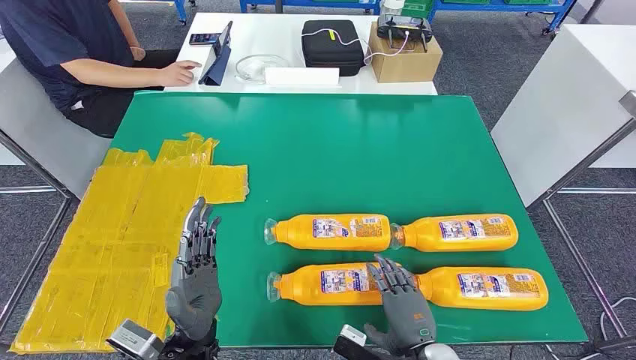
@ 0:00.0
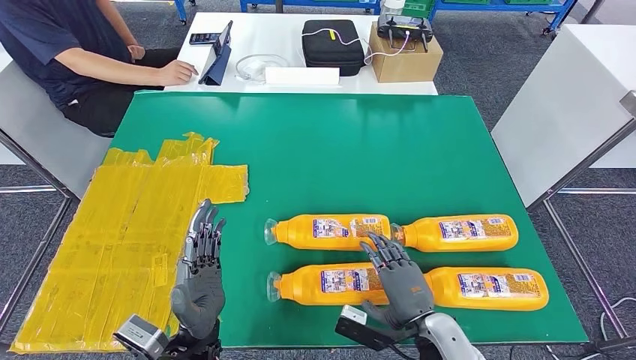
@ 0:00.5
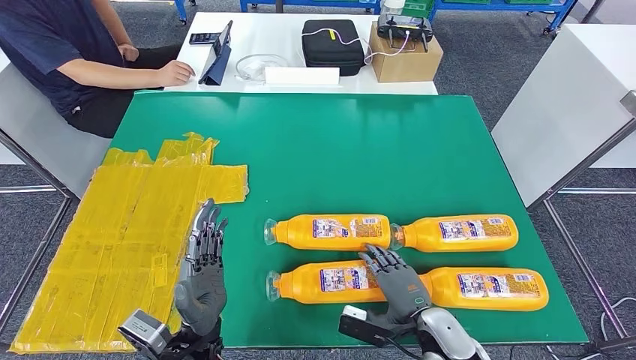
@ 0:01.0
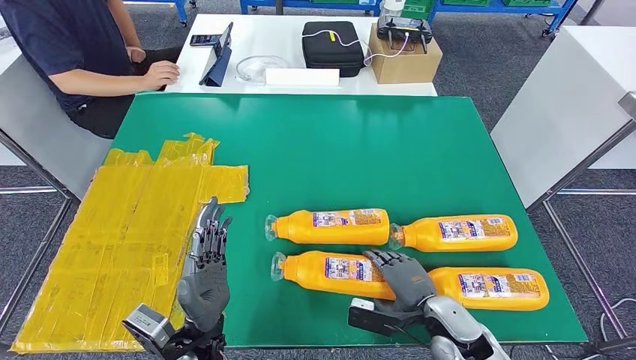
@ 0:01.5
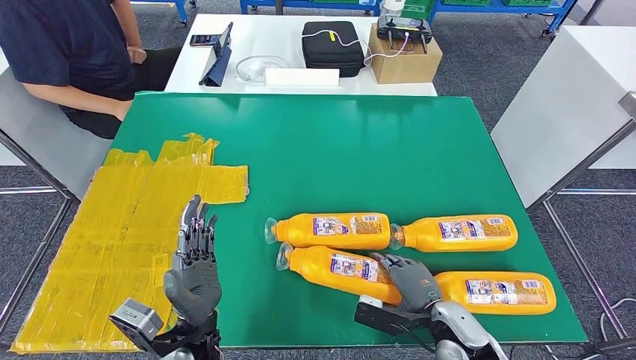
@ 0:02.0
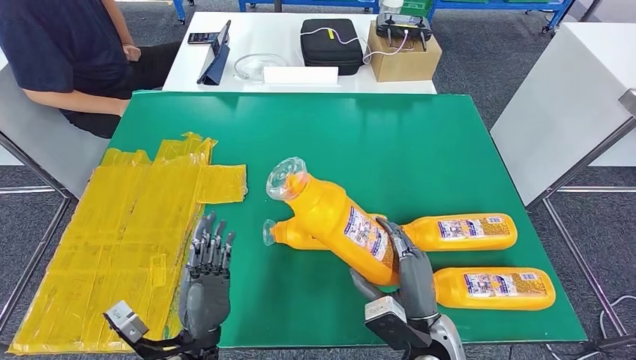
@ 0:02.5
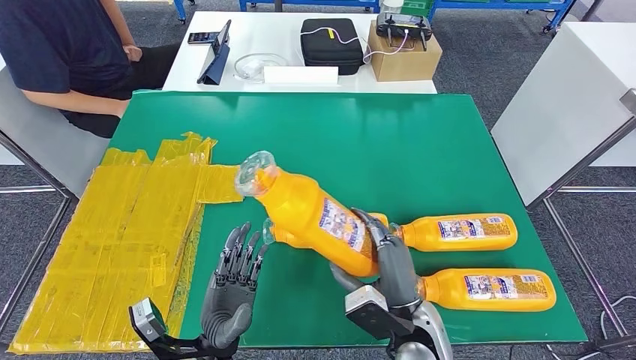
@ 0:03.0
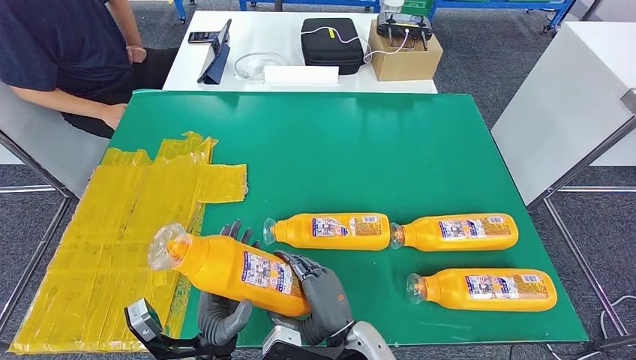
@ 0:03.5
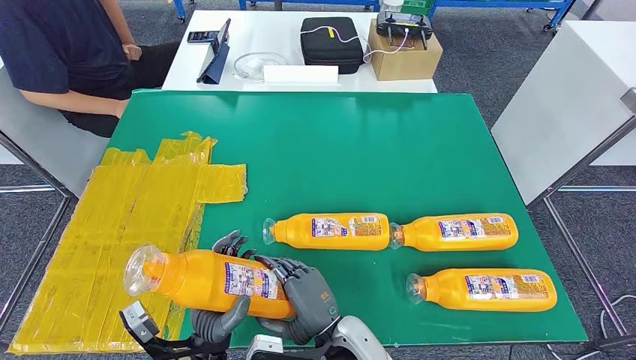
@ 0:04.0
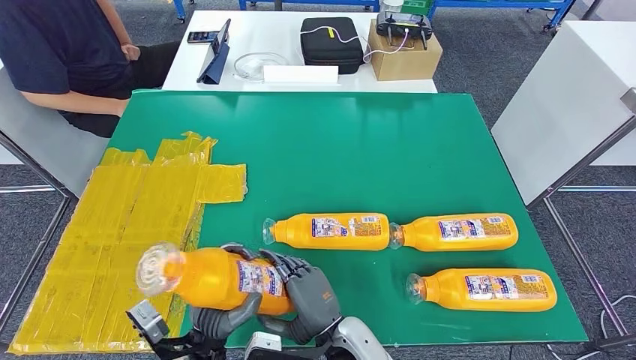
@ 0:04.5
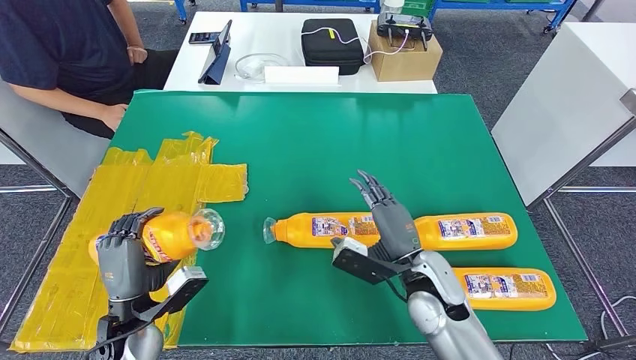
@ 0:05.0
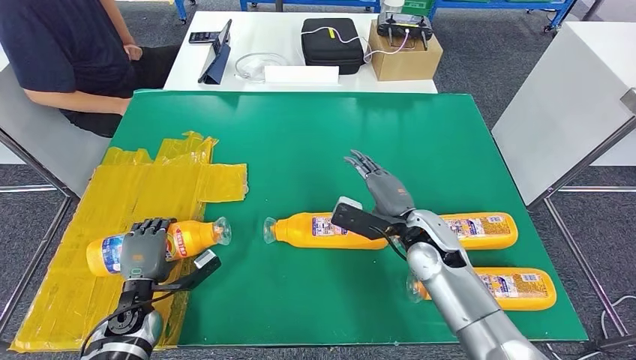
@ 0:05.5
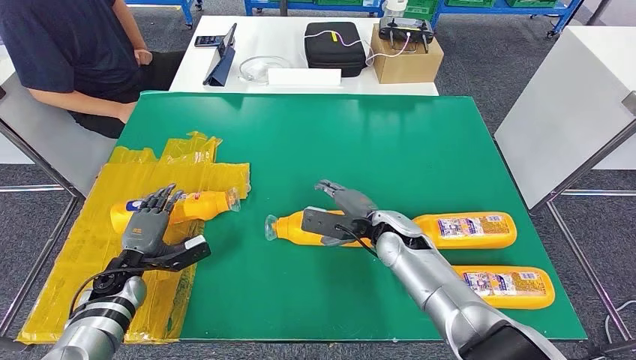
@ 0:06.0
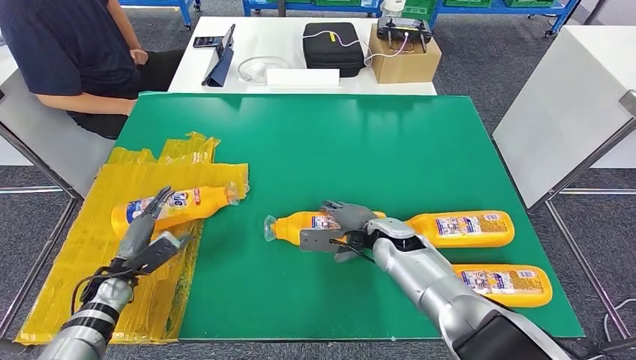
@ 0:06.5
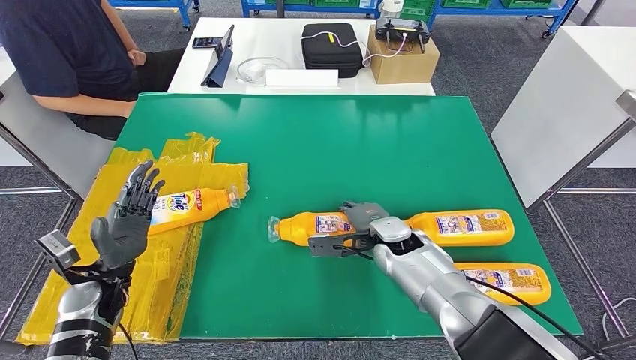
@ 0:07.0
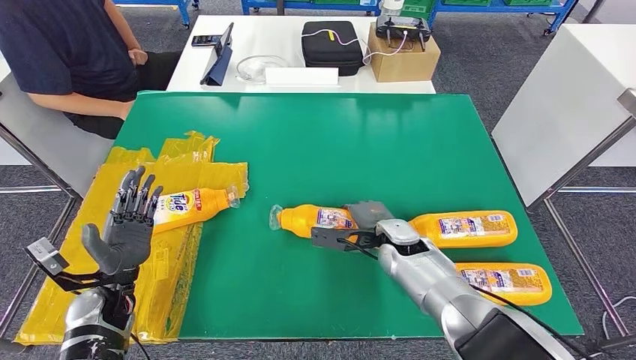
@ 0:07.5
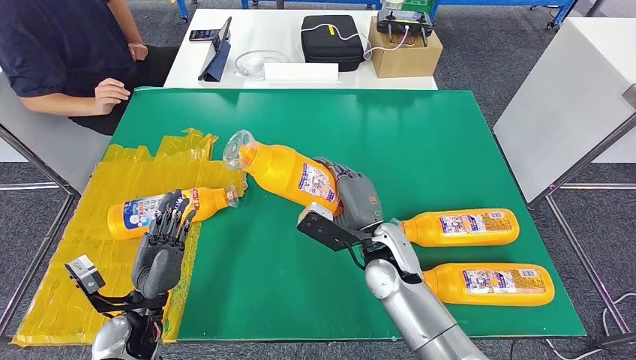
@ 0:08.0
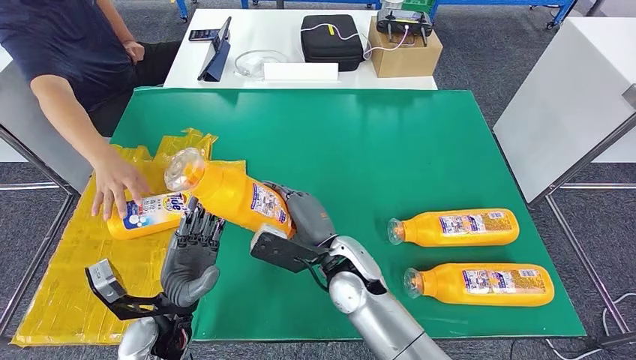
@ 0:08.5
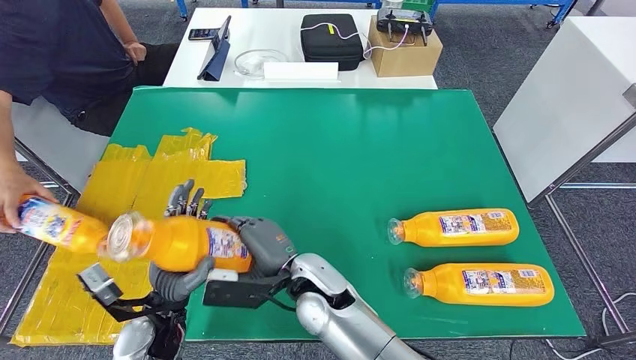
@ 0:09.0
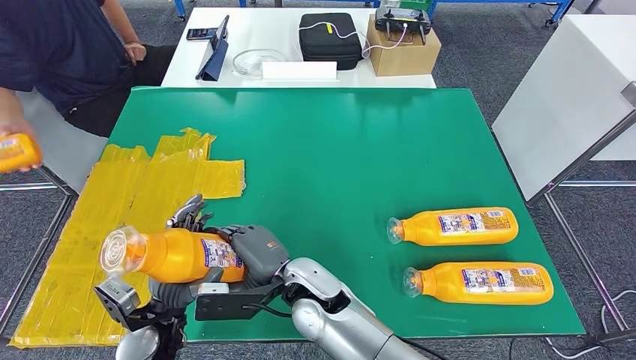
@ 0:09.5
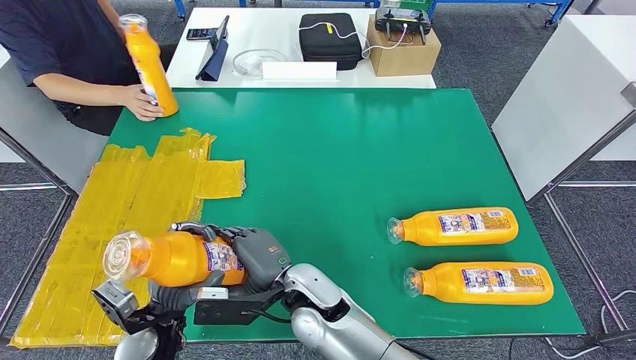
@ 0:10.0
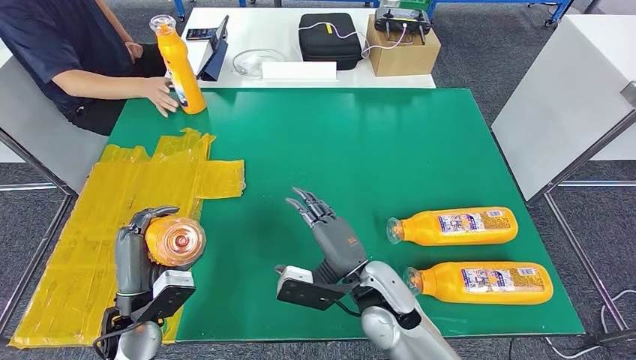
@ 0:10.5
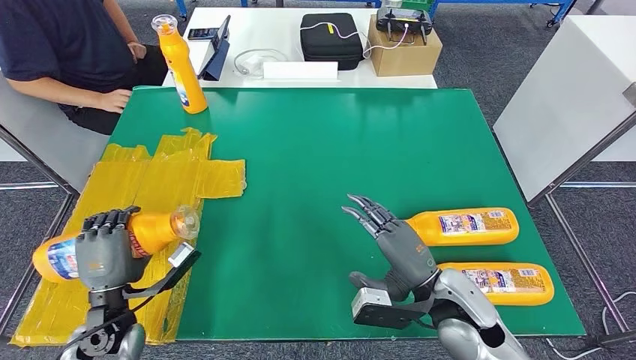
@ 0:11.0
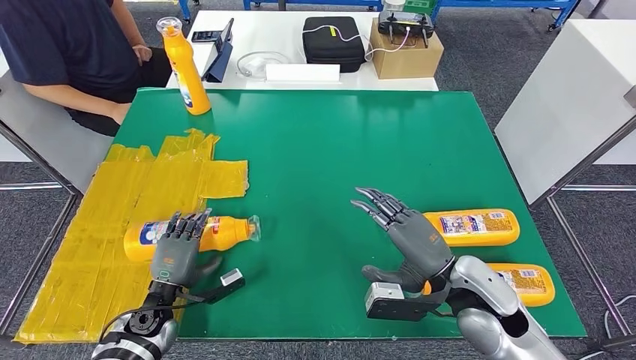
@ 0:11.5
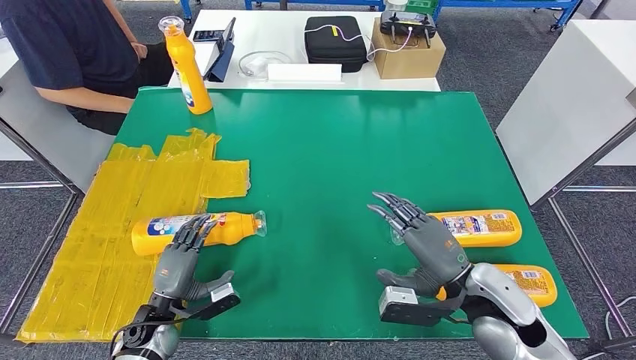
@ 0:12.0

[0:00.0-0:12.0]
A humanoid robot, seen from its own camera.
Step, 0:00.0 to 0:03.5: Take the bottle from the table.
Step, 0:04.0 to 0:08.0: Flip the bottle to face forward.
Step, 0:08.5 to 0:09.5: Pick up the bottle from the table.

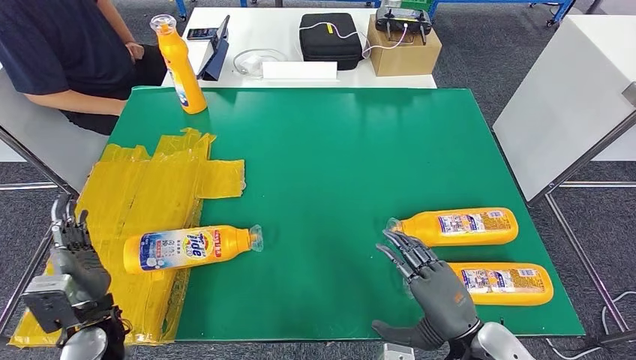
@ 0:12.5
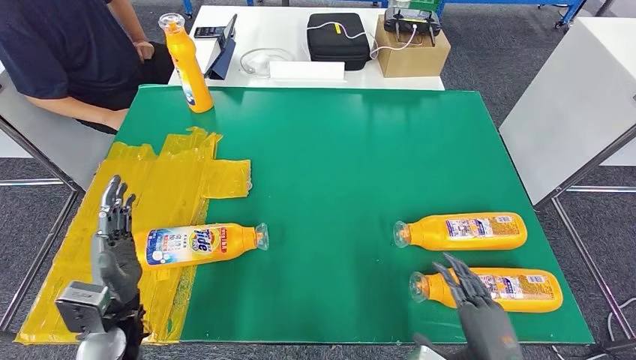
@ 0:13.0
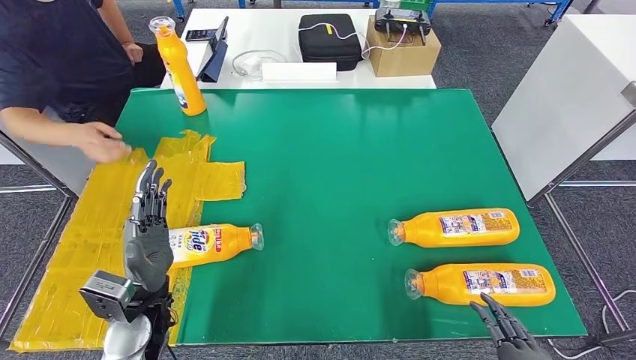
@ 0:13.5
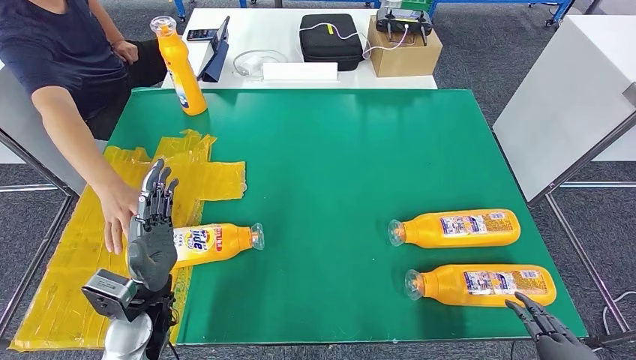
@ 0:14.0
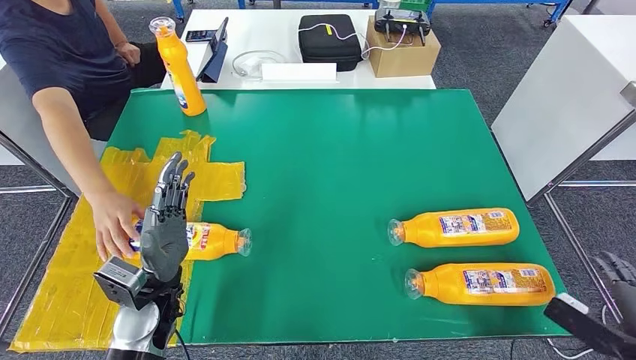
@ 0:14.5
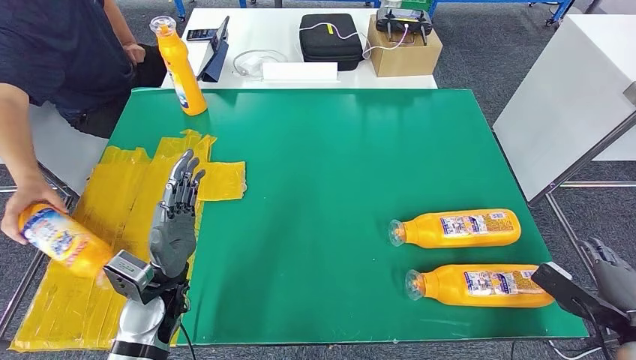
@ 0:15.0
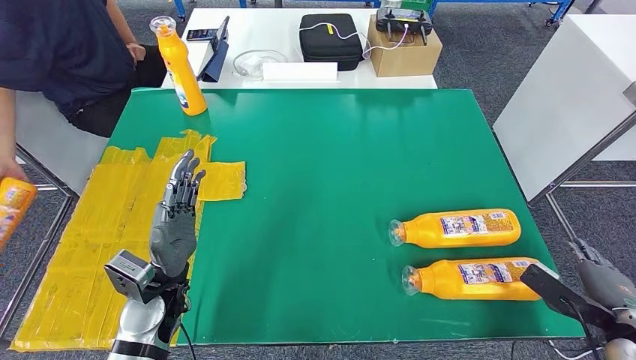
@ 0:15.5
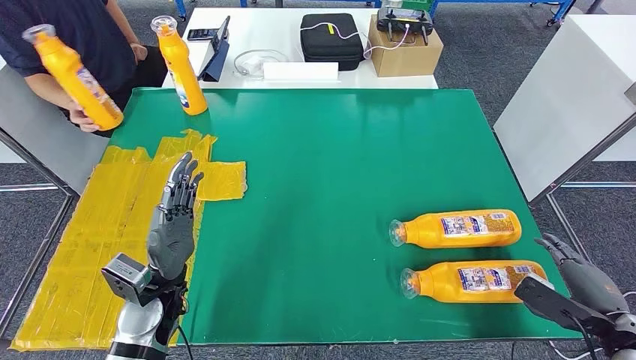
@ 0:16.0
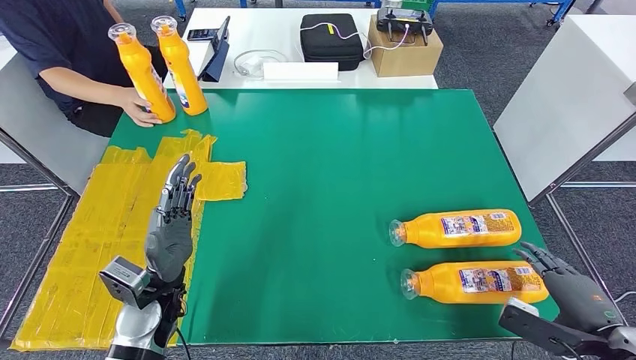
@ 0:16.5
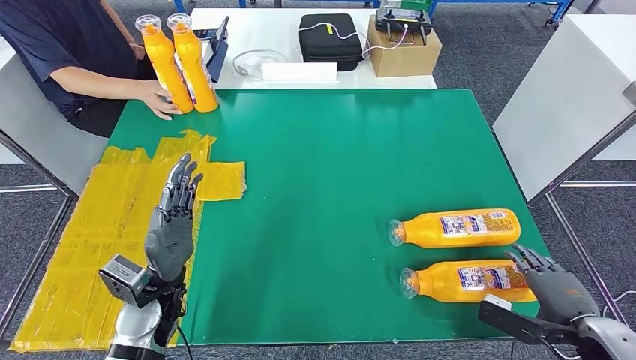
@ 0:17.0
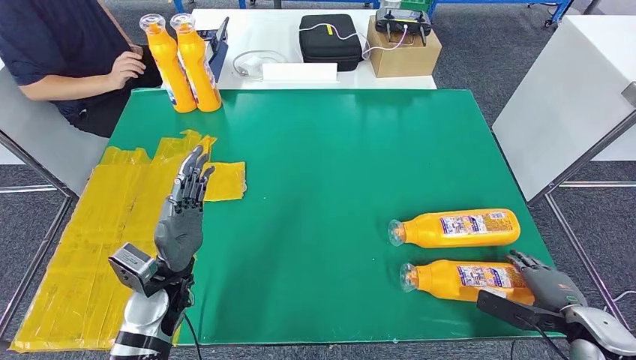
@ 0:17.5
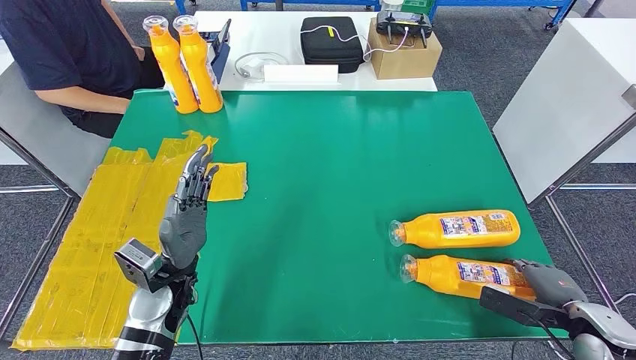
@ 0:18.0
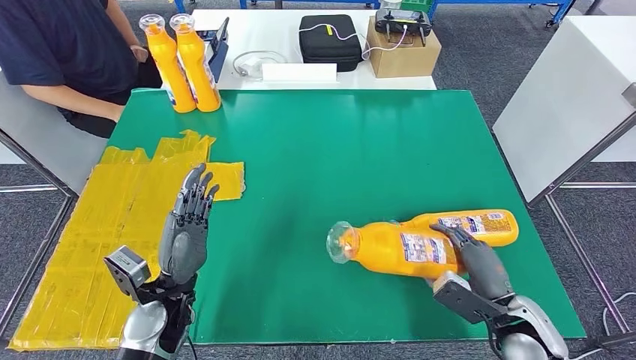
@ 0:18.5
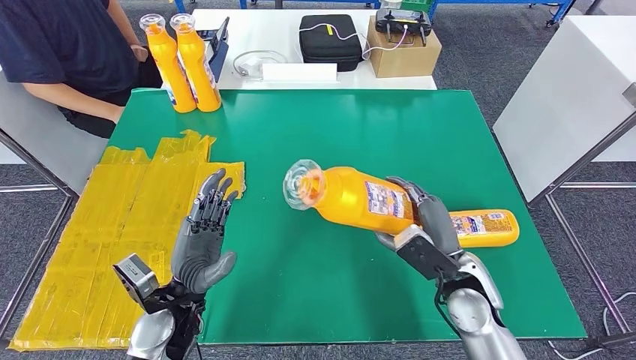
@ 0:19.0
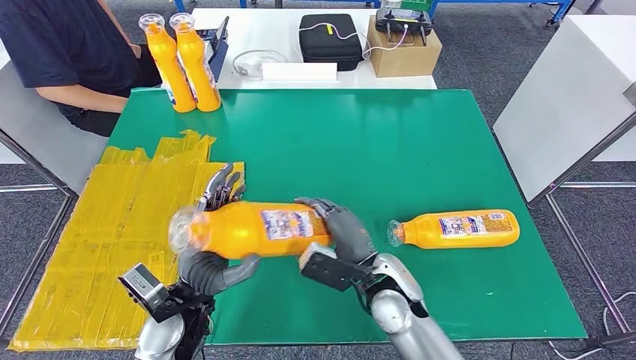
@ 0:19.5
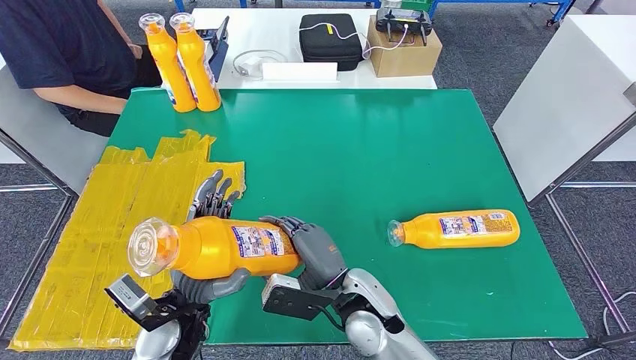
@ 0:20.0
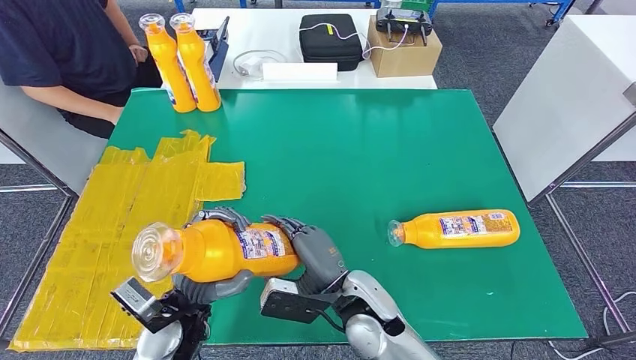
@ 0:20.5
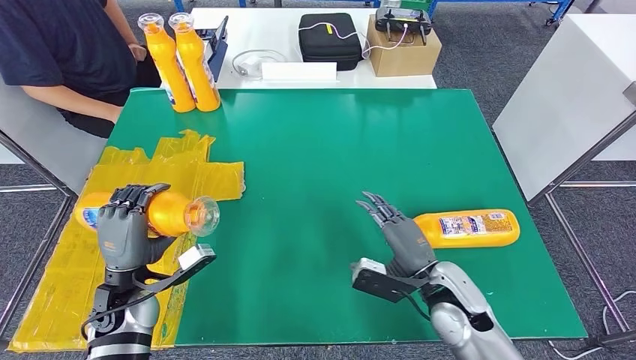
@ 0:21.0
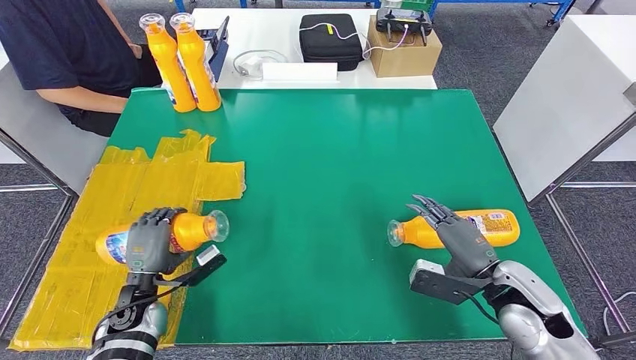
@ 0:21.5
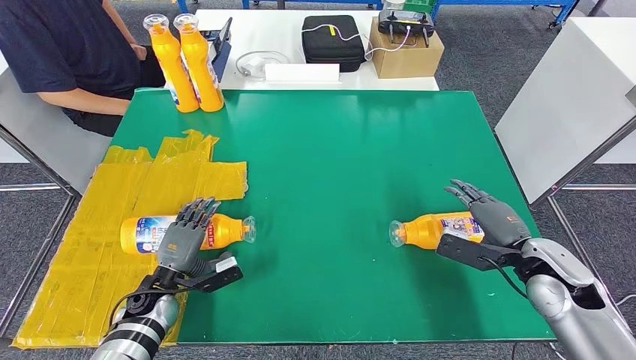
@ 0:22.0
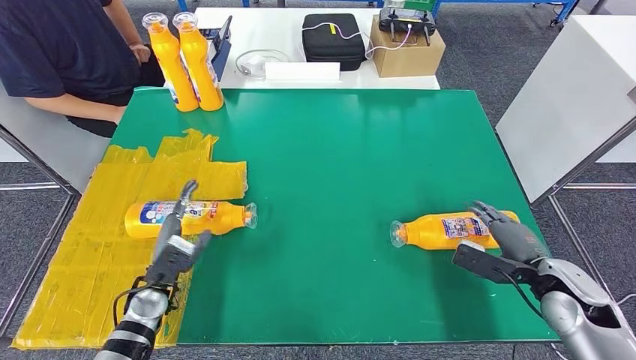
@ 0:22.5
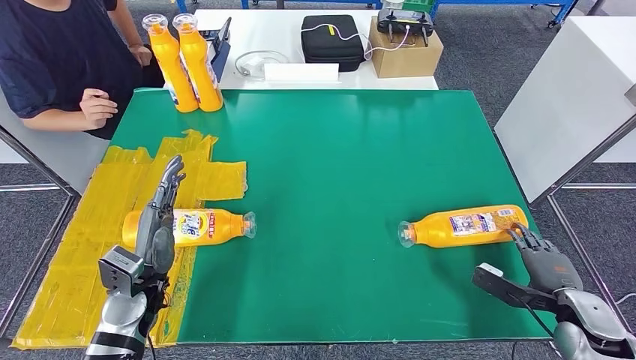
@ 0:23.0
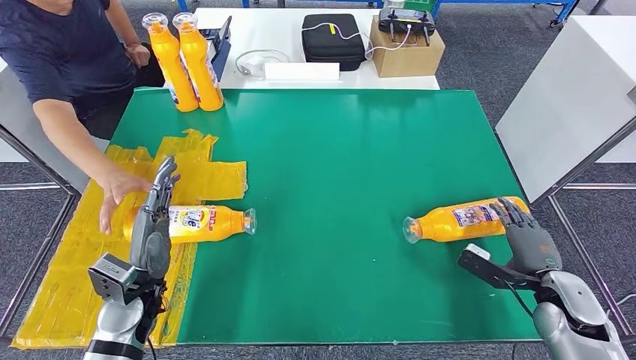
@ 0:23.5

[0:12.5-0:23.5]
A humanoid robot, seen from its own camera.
Step, 0:13.0 to 0:19.5: Pick up the bottle from the table.
Step, 0:20.0 to 0:23.0: Flip the bottle to face forward.
0:14.5 to 0:16.0: The right hand moves about 5 cm.
0:16.0 to 0:18.0: The right hand ends up roughly 5 cm from where it was.
0:20.0 to 0:21.5: The right hand heads to the right, covering about 25 cm; the left hand is displaced to the left and downward by approximately 15 cm.
